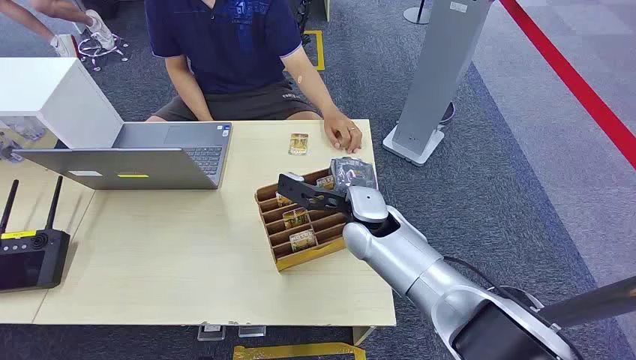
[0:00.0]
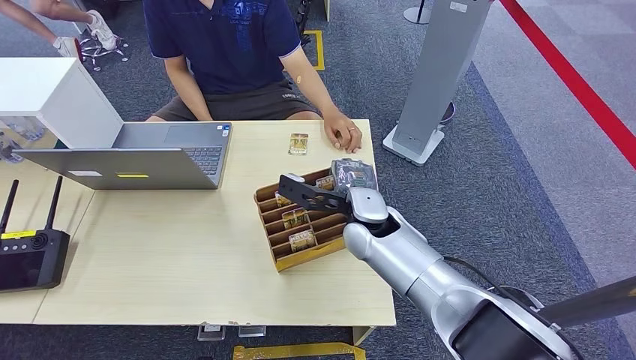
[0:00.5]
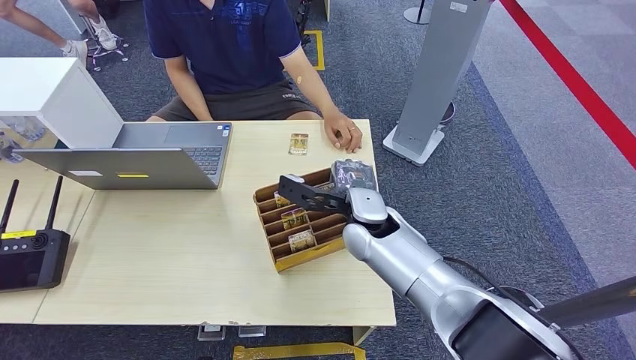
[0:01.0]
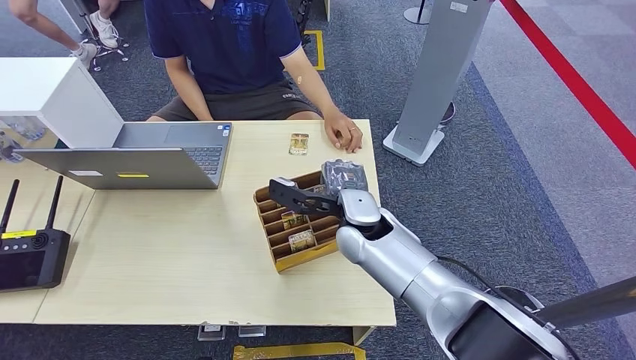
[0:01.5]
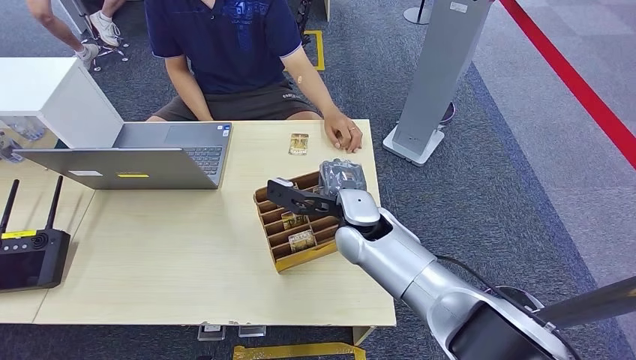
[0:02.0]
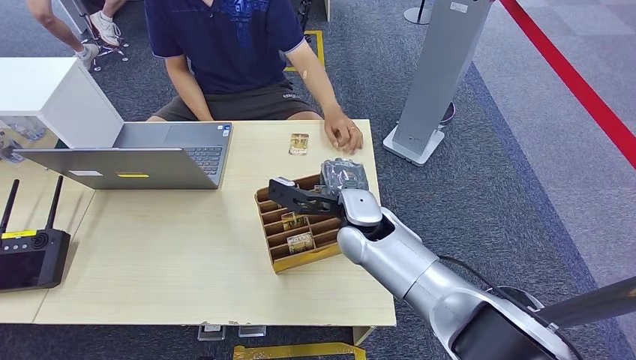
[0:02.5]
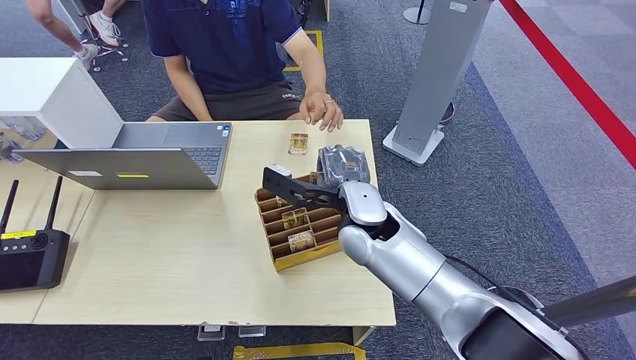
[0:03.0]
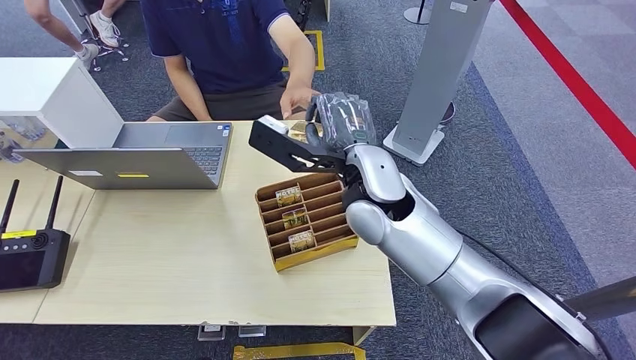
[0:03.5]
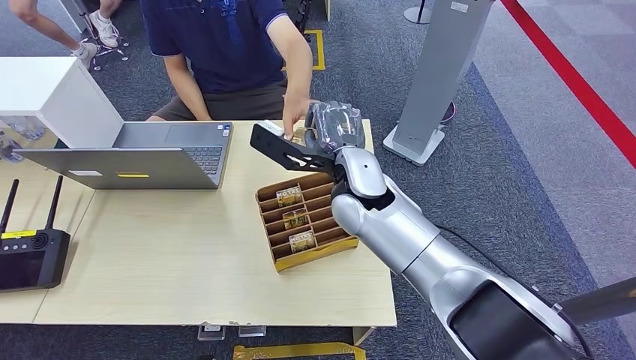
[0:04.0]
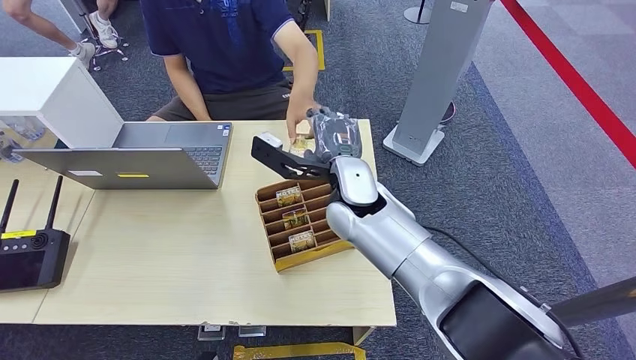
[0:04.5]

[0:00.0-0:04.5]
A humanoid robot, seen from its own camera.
Step, 0:00.0 to 0:02.5: Pick up the room card from the card holder.
Step, 0:03.5 to 0:04.5: Hand the room card to the target.
0:02.0 to 0:04.5: The right hand shifts about 5 cm upward.
